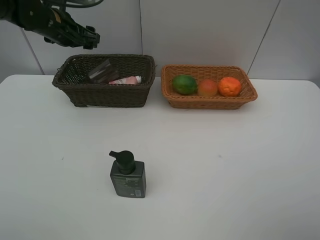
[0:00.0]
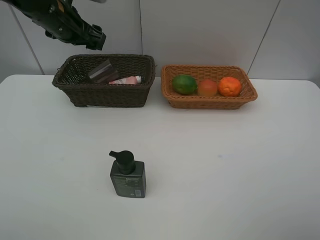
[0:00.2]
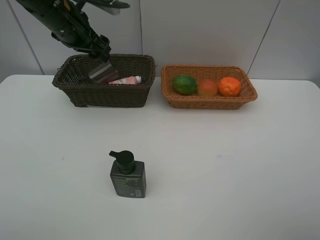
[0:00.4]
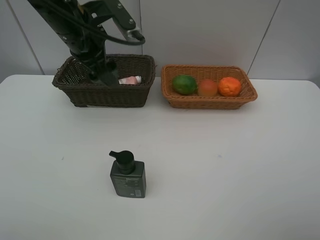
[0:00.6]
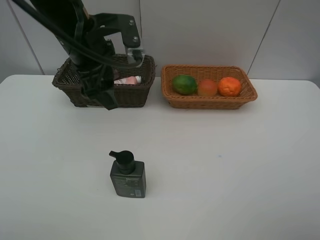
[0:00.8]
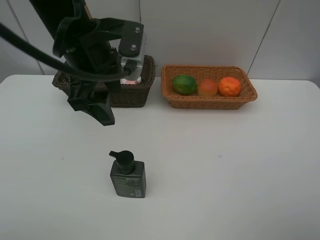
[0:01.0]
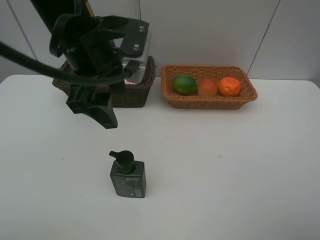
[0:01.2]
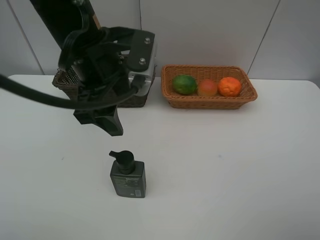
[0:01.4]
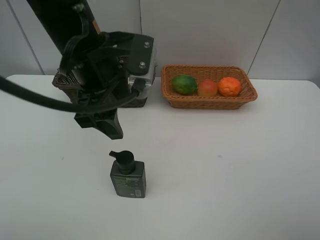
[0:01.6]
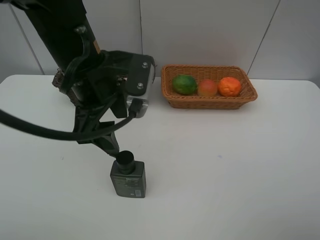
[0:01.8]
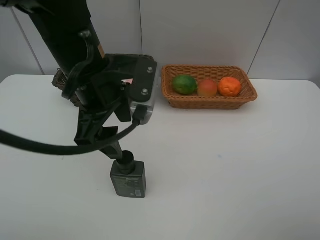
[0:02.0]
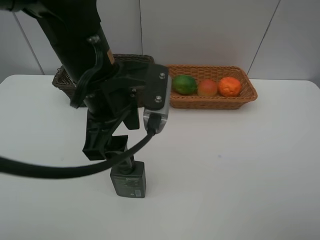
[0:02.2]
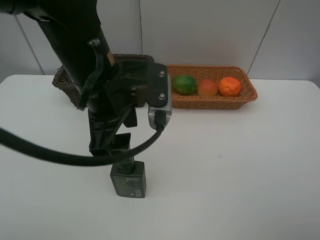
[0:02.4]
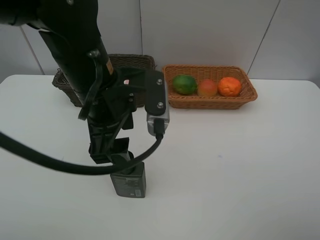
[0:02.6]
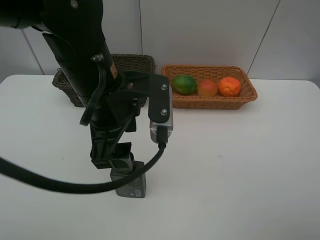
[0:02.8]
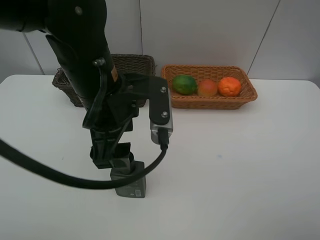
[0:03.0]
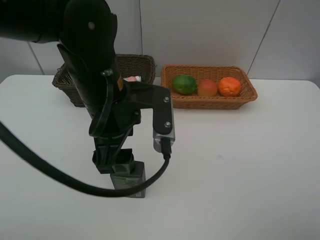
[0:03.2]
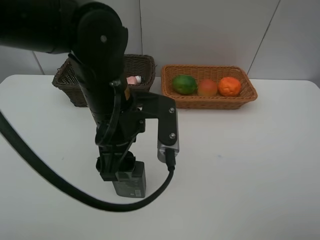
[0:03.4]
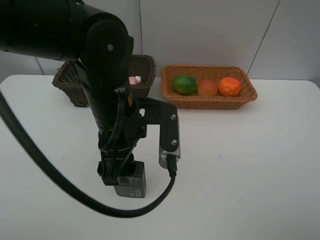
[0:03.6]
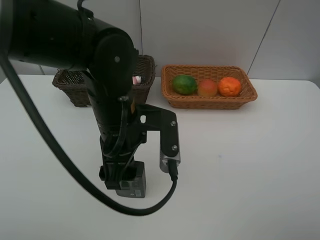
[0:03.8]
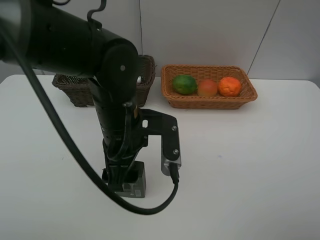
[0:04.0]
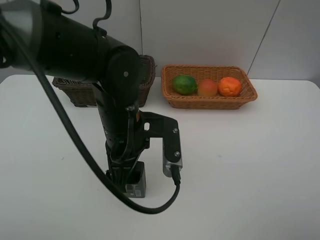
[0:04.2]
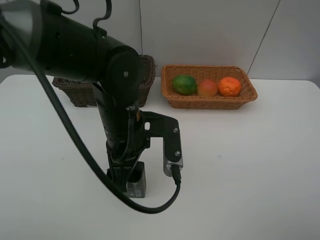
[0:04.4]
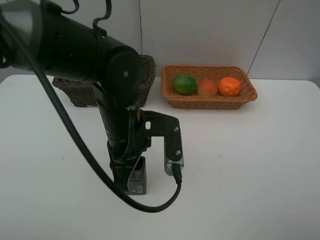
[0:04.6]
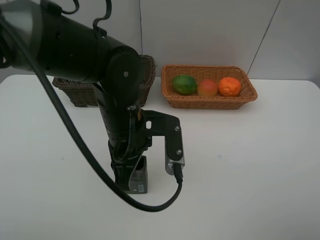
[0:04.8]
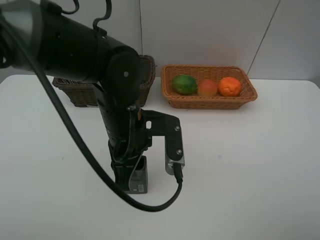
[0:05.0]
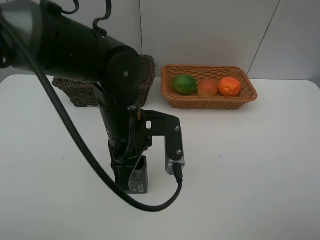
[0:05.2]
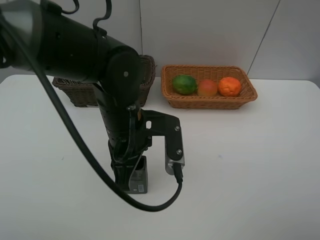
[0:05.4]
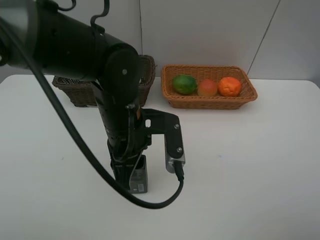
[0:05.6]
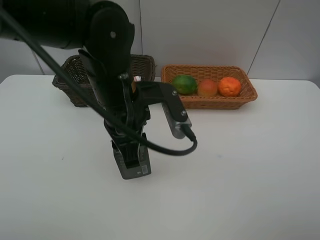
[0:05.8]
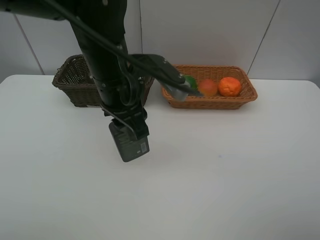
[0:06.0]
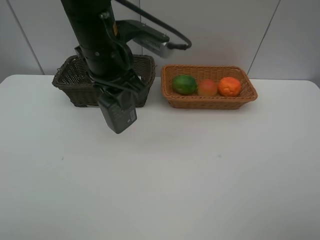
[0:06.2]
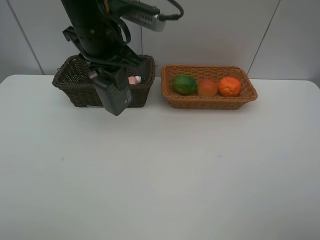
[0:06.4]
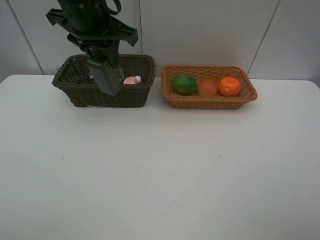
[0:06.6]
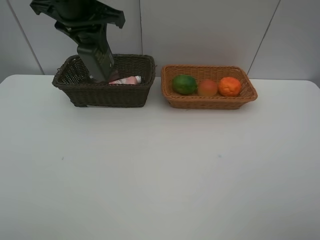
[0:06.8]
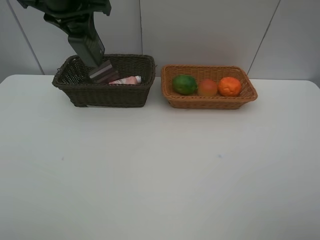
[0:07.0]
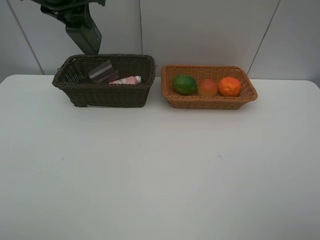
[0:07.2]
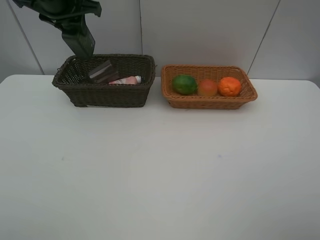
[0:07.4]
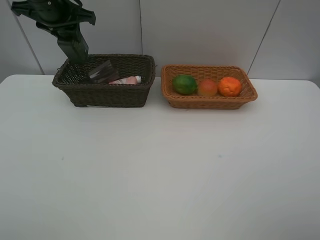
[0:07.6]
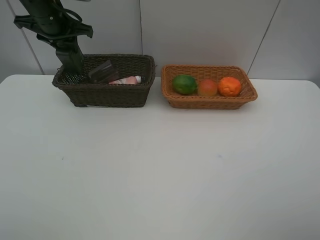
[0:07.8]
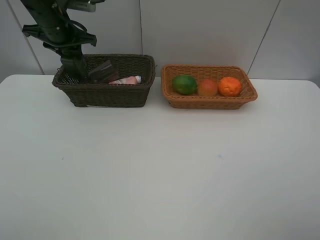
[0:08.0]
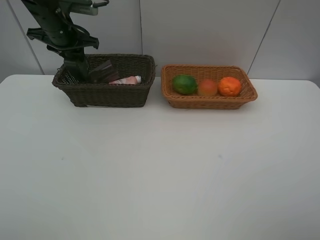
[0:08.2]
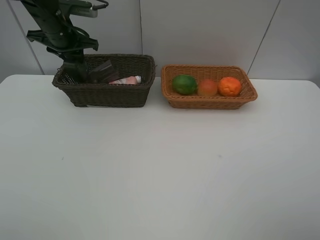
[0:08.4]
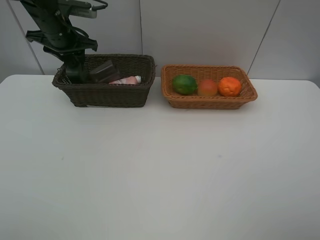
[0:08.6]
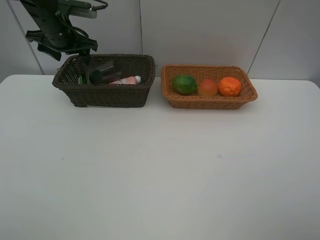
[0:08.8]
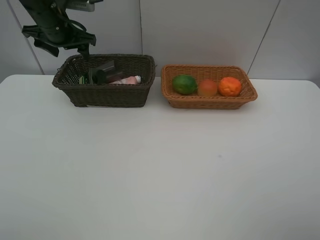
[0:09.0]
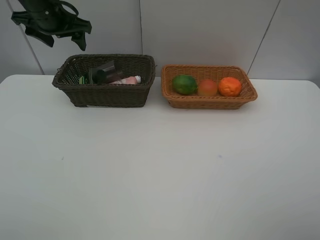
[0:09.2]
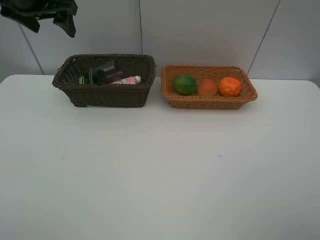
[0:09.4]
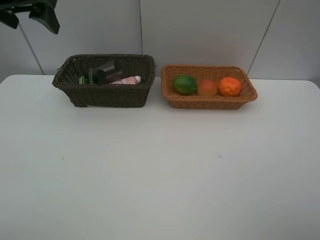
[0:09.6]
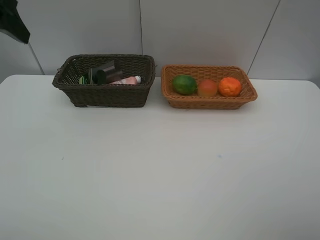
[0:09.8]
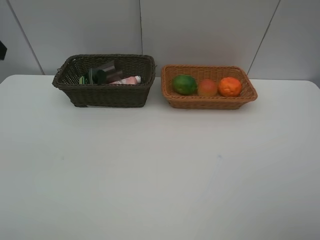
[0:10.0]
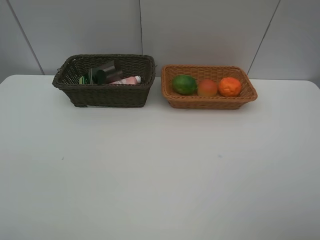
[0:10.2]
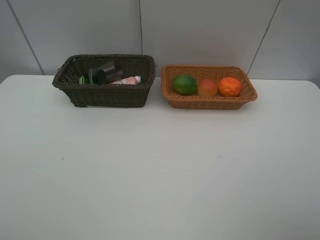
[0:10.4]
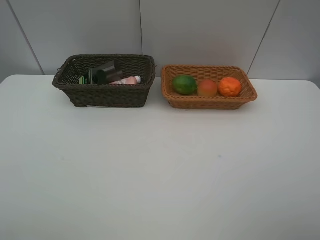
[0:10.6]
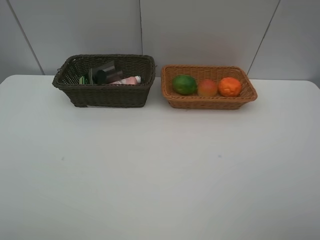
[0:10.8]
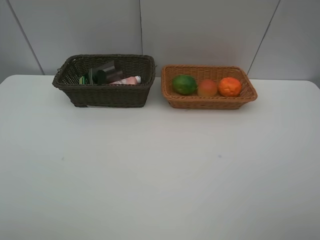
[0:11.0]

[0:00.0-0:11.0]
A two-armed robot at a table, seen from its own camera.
Task of the whole recording: place multiple objects separately in different baskets.
0:00.0 to 0:01.6: The left gripper shifts approximately 20 cm backward and to the right.
0:01.6 to 0:03.2: The left gripper shifts by approximately 5 cm.
0:03.2 to 0:04.8: The left gripper shifts approximately 5 cm downward, and closes its fingers.
0:04.8 to 0:06.2: The left gripper shifts about 15 cm upward and forward.
0:06.2 to 0:07.8: The left gripper shifts approximately 20 cm to the left and forward.
0:07.8 to 0:09.4: The left gripper goes approximately 10 cm upward and backward, and opens up.
0:09.4 to 0:11.0: The left gripper moves backward, roughly 35 cm.

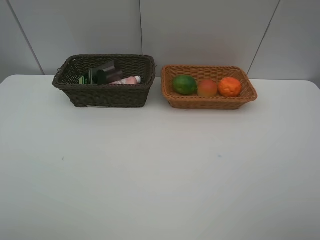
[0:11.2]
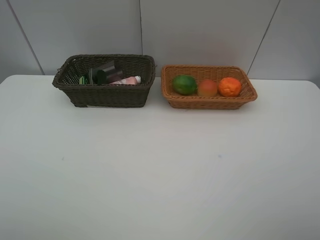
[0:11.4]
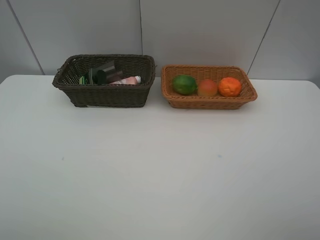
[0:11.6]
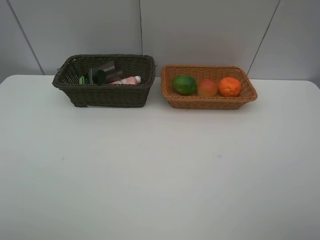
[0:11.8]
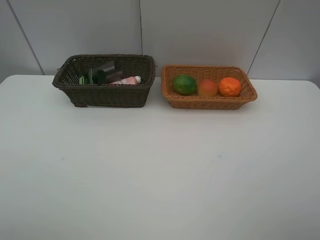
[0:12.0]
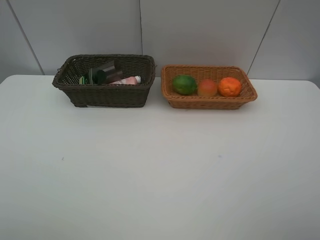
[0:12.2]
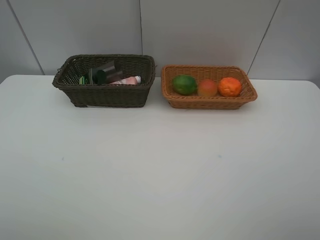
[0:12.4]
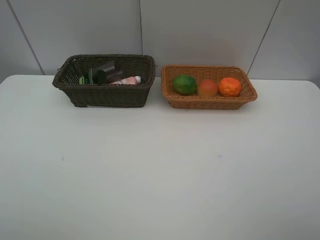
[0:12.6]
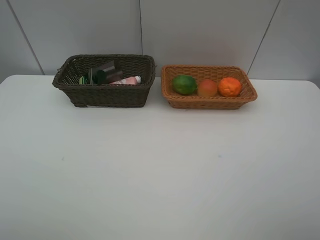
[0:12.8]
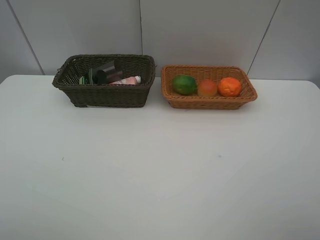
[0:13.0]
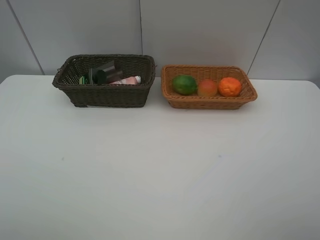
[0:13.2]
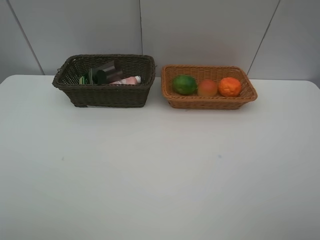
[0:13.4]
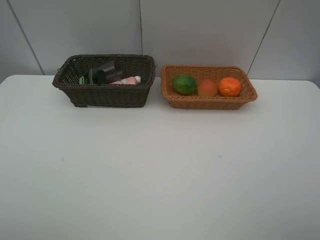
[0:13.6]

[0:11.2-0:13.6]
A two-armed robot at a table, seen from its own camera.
Task of the whole recording: place multiple objects separately in different baskets.
0:12.4 to 0:13.6: Neither gripper changes place.

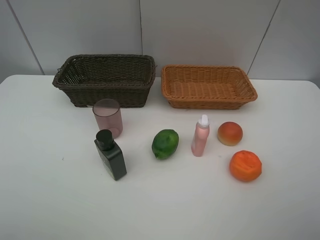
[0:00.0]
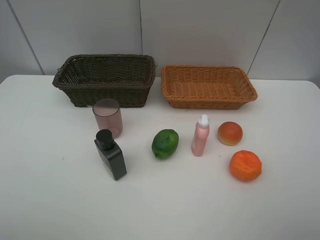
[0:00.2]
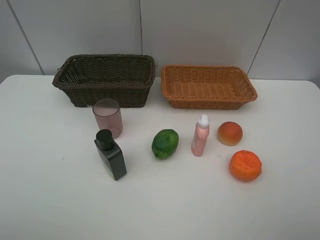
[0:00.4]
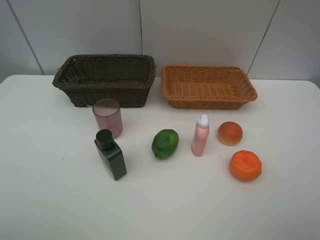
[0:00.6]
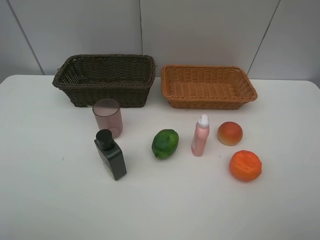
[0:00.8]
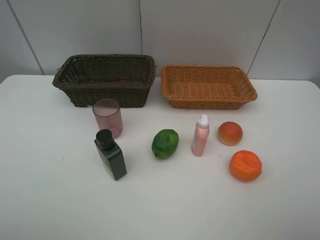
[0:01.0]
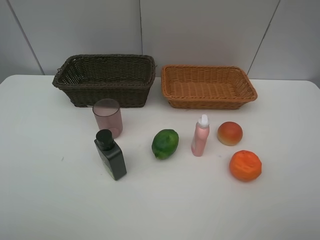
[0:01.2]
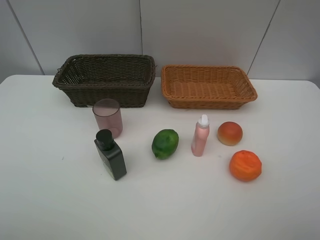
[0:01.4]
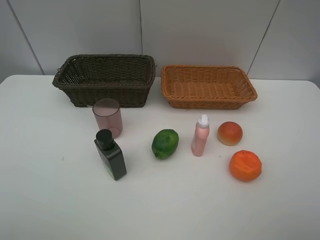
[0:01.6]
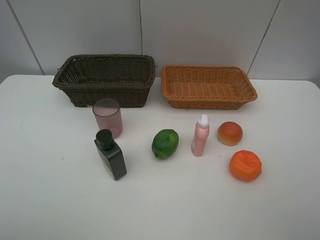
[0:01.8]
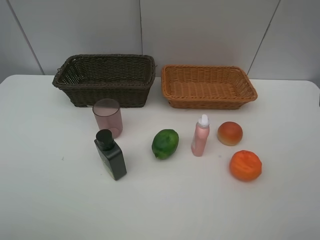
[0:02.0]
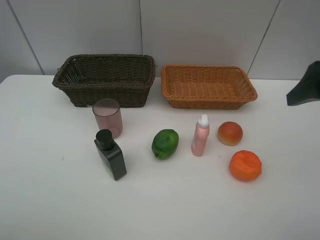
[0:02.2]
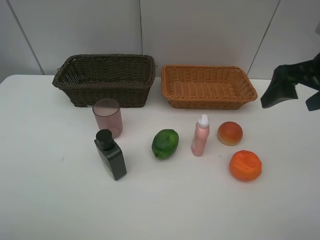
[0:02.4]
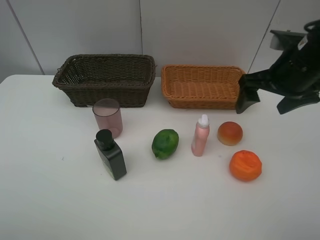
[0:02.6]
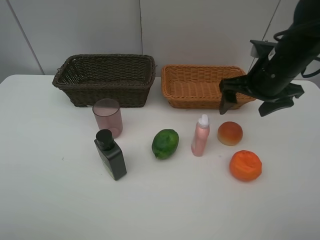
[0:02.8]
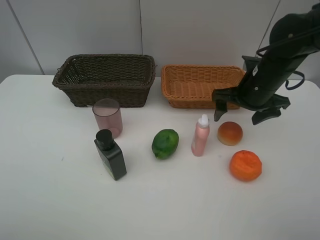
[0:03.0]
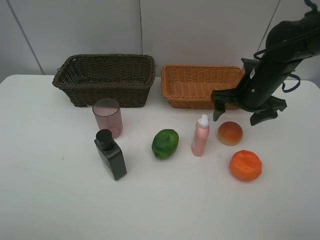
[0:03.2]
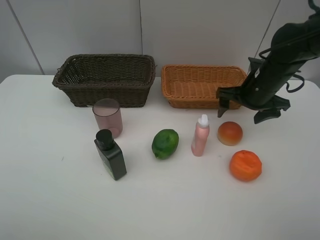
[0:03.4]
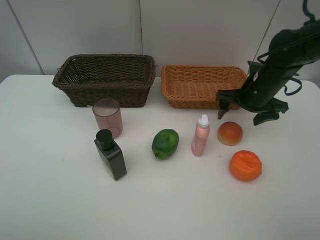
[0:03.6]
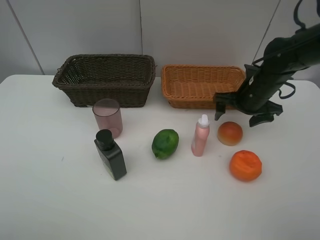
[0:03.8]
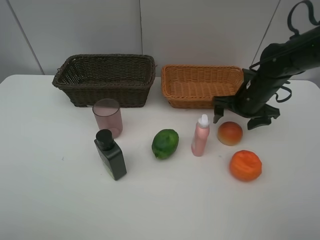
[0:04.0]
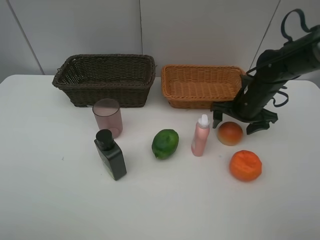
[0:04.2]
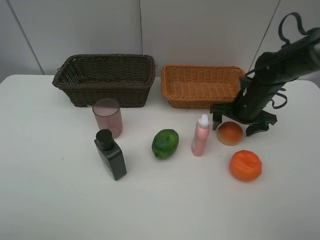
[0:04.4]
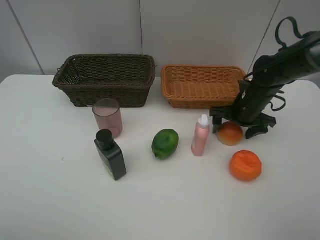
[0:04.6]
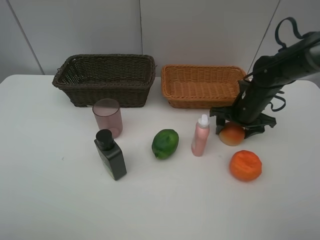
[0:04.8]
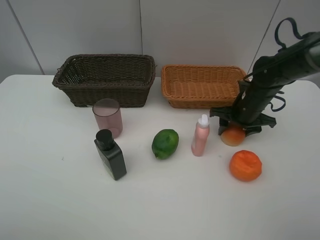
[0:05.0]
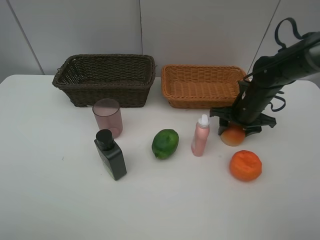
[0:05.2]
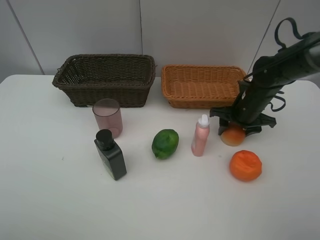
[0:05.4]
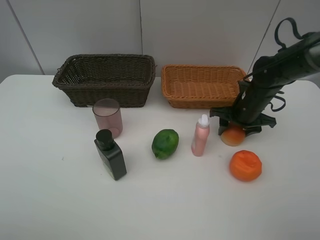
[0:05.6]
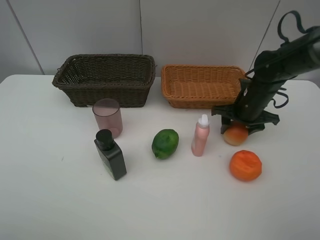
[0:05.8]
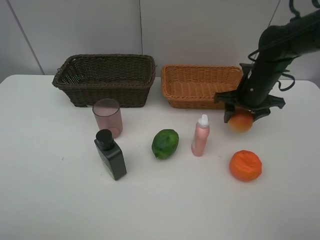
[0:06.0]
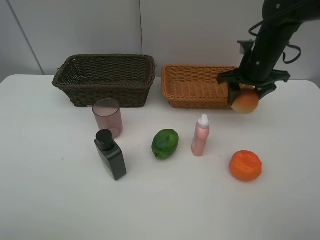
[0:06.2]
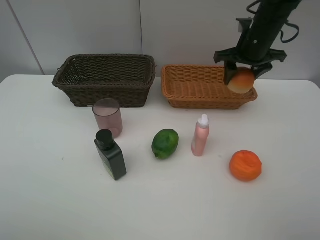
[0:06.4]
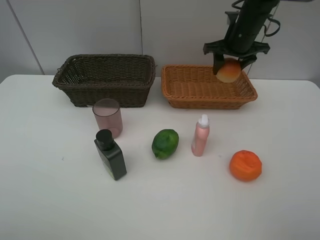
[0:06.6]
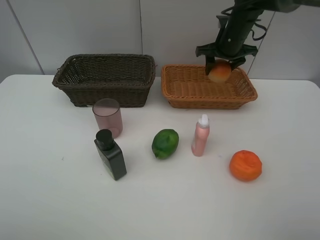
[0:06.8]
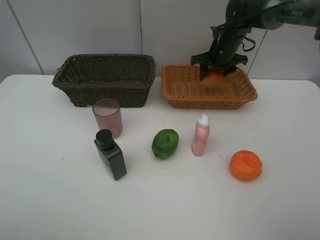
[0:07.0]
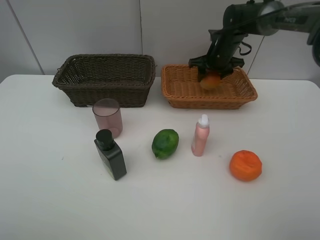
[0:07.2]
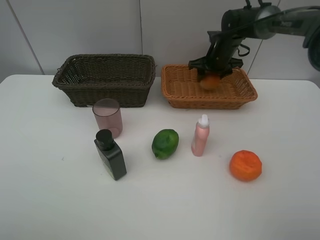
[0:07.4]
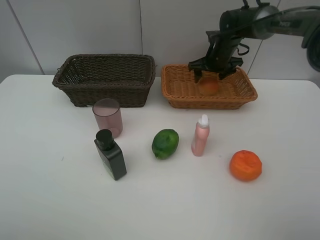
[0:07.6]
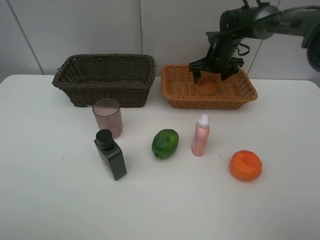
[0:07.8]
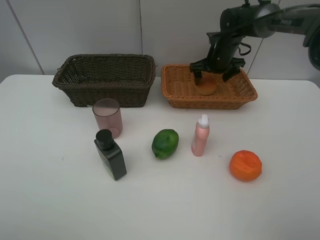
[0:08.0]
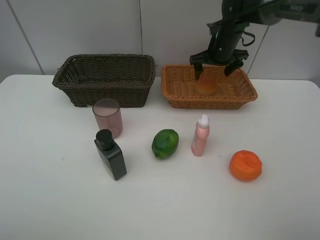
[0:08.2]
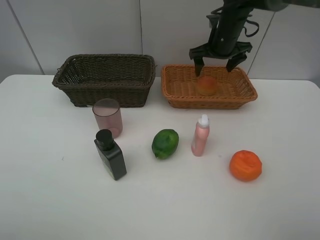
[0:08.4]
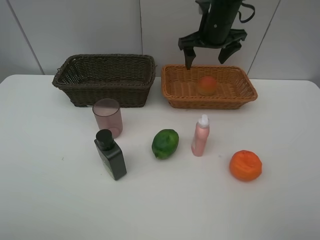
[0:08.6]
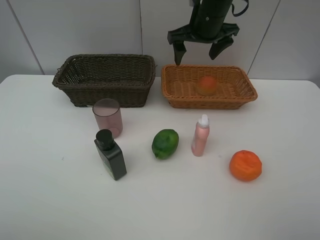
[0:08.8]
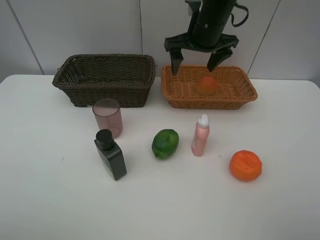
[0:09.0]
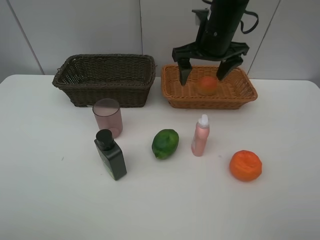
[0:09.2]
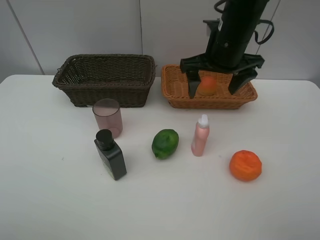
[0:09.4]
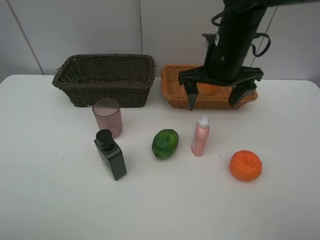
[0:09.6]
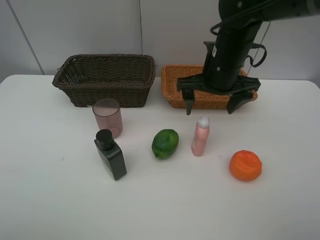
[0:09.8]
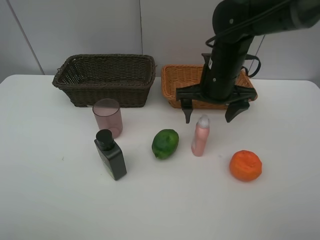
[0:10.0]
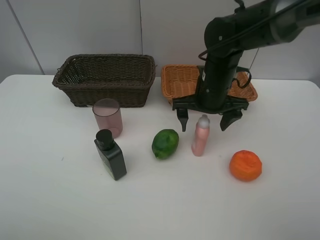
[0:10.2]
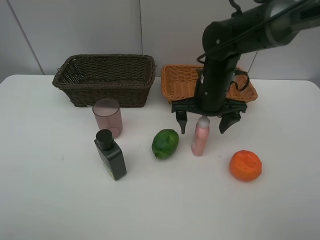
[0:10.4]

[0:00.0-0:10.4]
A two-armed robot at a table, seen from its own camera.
Task of the whole recording: place multiple objects separately in different baskets.
Step, 0:00.0 to 0:05.8: Pick up the bread with right gripper.
Step, 0:06.0 to 0:08.4: Place the bread in the light basket with right gripper.
0:00.0 to 0:01.4: The two grippers keep their place.
0:01.4 to 0:03.0: The right gripper goes approximately 30 cm forward.
0:03.0 to 0:04.4: The right gripper heads downward, covering approximately 5 cm.
0:04.4 to 0:06.0: The right gripper is displaced upward by some 5 cm, and closes.
0:06.0 to 0:07.4: The right gripper goes about 15 cm forward.
0:07.4 to 0:09.0: The right gripper is displaced backward, upward and to the left by approximately 20 cm, and opens up.
0:09.0 to 0:10.4: The right gripper is displaced downward and backward by roughly 10 cm.
